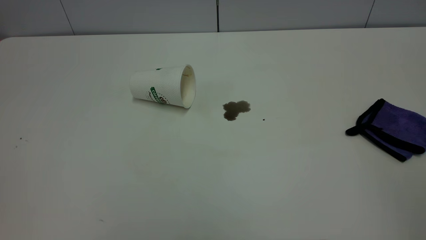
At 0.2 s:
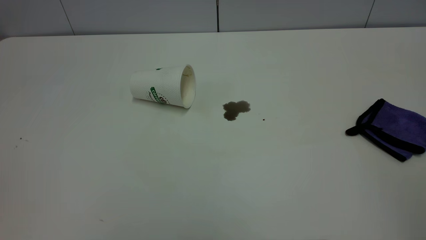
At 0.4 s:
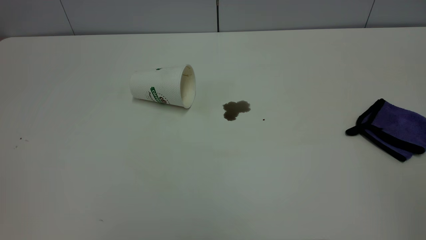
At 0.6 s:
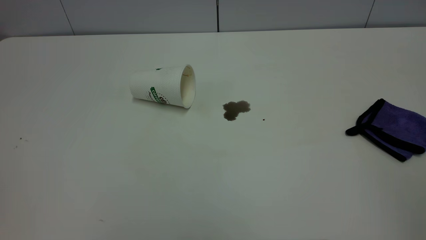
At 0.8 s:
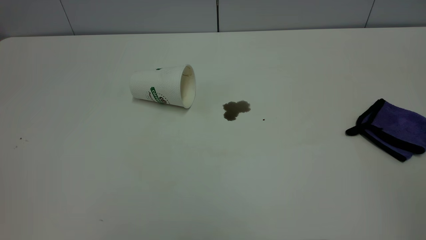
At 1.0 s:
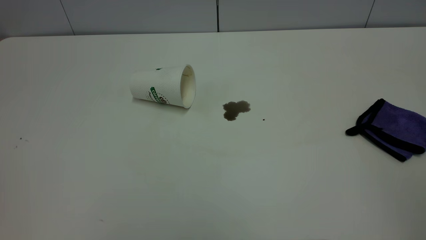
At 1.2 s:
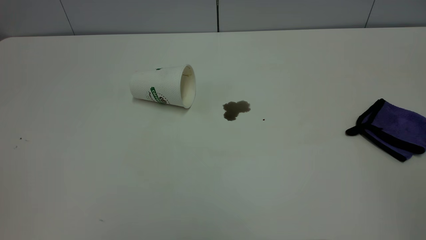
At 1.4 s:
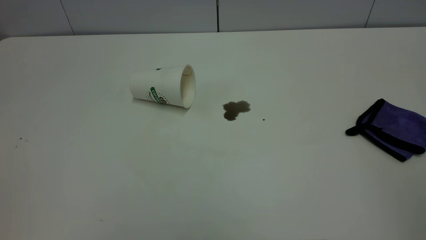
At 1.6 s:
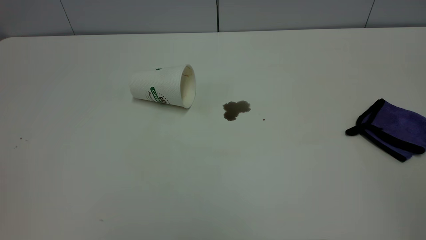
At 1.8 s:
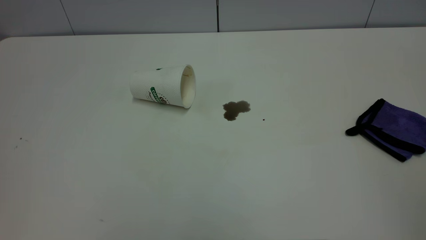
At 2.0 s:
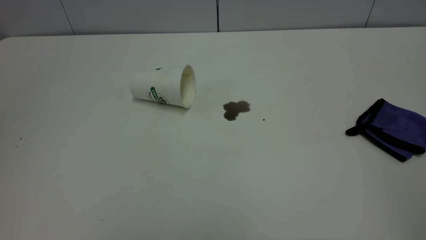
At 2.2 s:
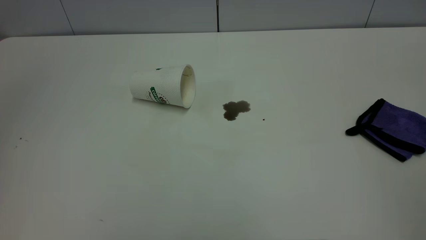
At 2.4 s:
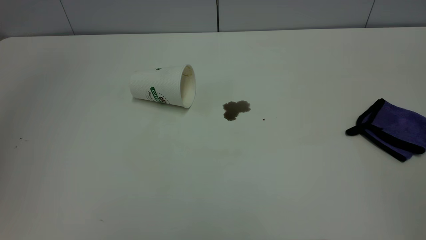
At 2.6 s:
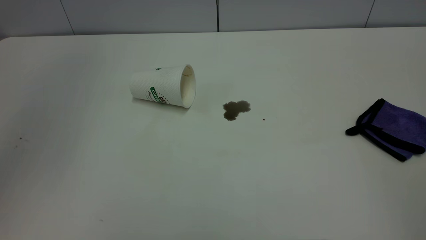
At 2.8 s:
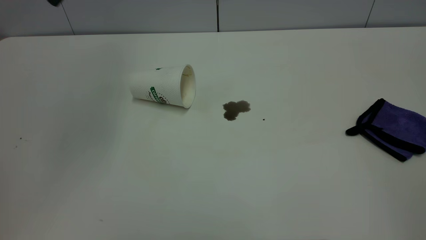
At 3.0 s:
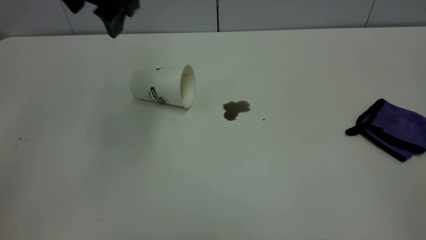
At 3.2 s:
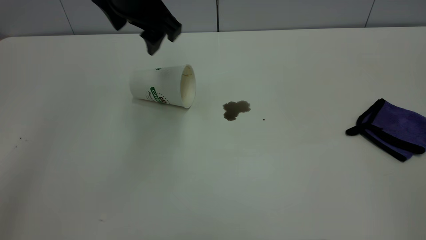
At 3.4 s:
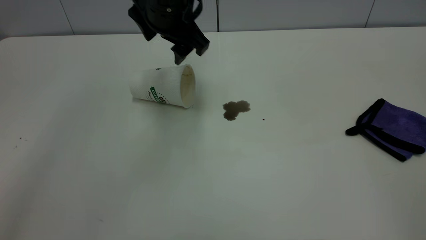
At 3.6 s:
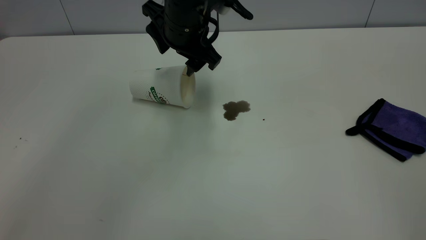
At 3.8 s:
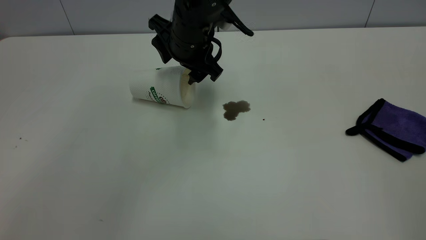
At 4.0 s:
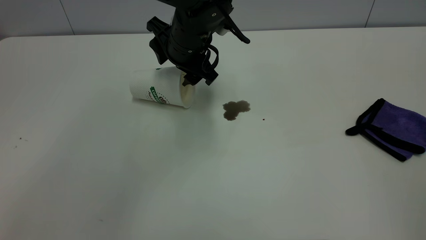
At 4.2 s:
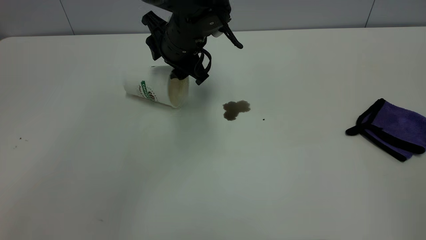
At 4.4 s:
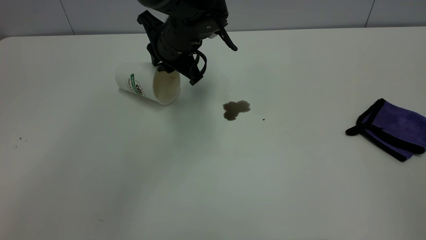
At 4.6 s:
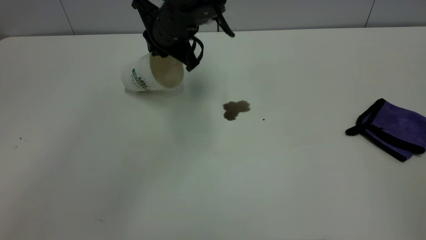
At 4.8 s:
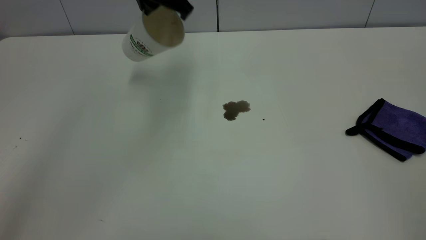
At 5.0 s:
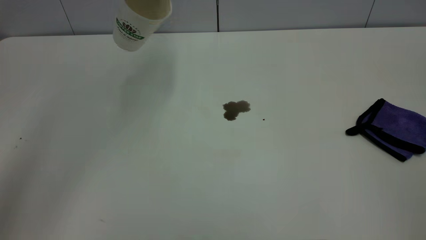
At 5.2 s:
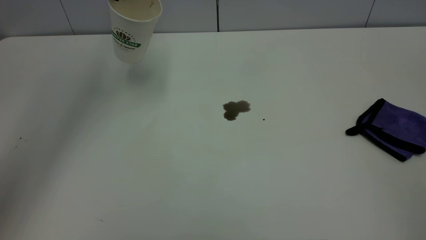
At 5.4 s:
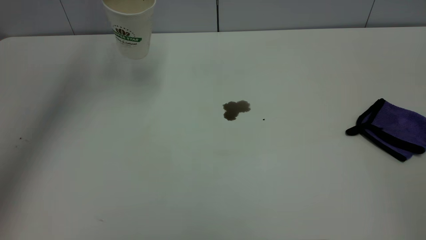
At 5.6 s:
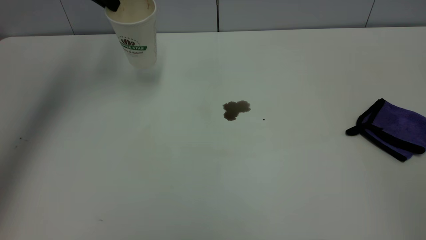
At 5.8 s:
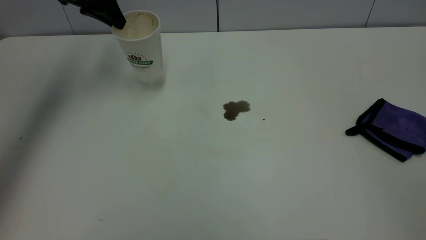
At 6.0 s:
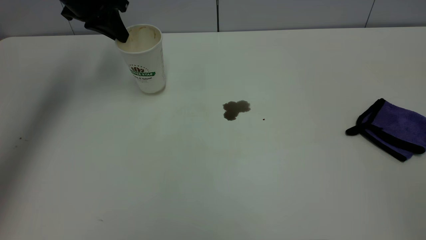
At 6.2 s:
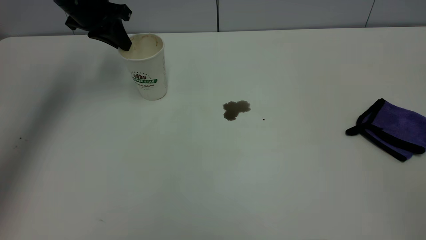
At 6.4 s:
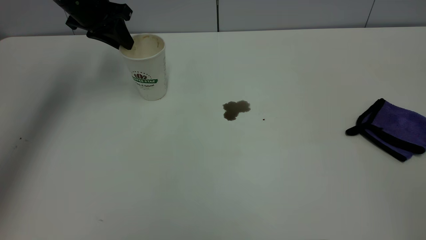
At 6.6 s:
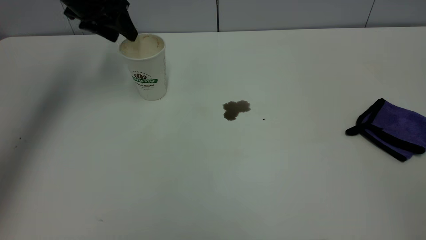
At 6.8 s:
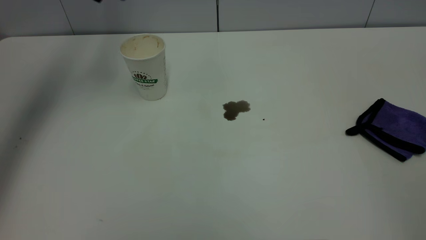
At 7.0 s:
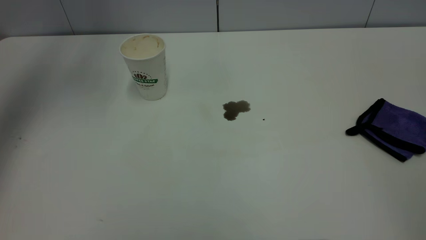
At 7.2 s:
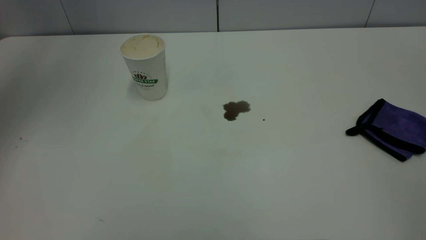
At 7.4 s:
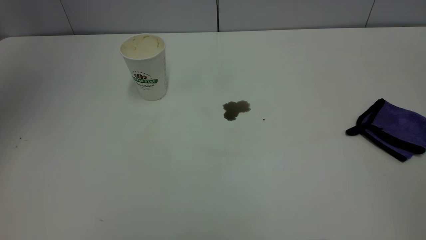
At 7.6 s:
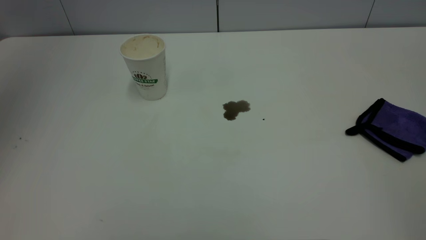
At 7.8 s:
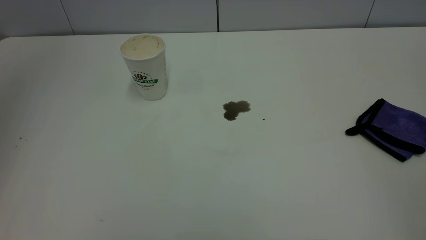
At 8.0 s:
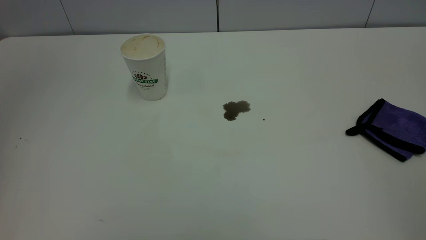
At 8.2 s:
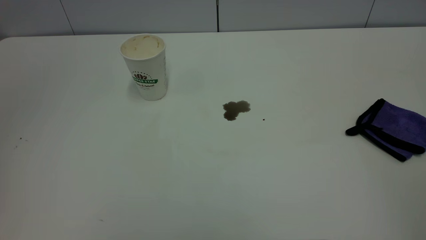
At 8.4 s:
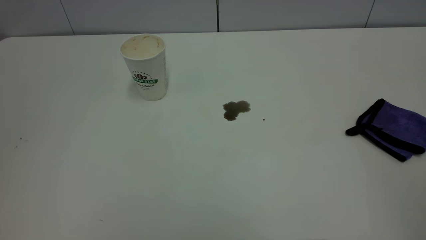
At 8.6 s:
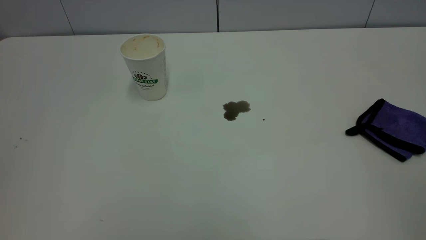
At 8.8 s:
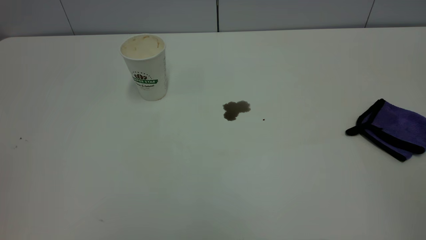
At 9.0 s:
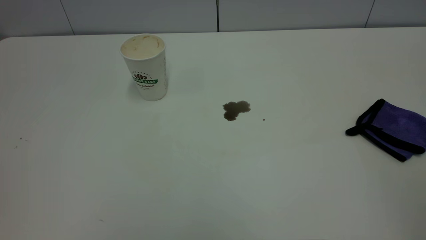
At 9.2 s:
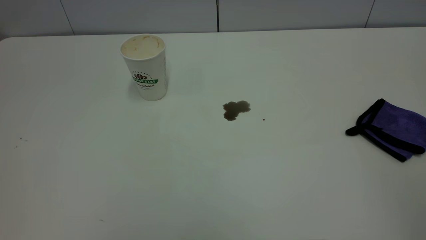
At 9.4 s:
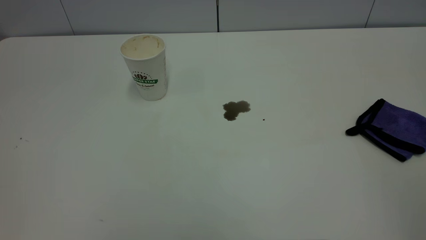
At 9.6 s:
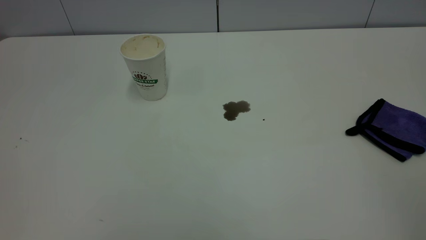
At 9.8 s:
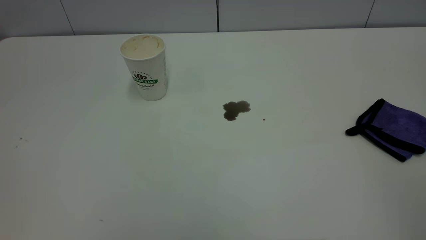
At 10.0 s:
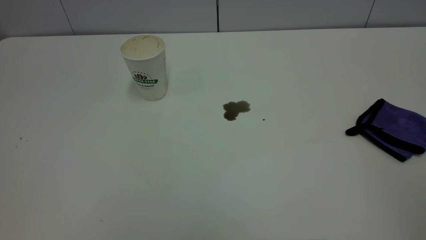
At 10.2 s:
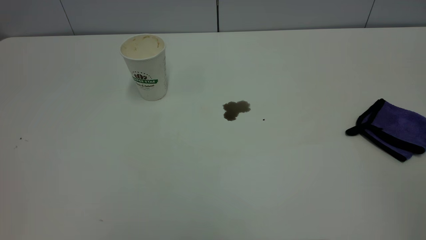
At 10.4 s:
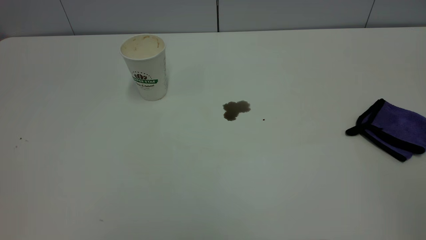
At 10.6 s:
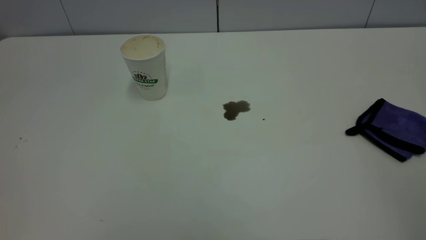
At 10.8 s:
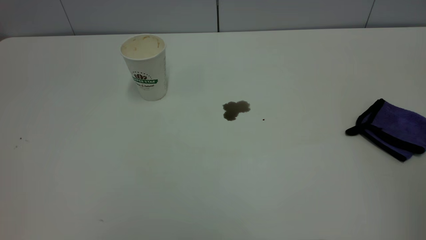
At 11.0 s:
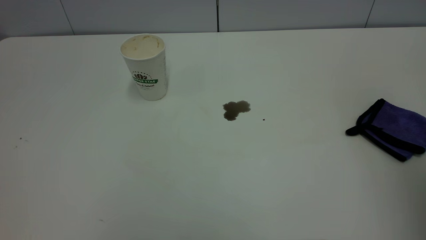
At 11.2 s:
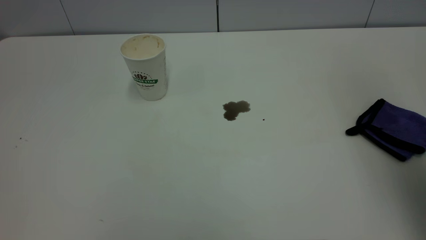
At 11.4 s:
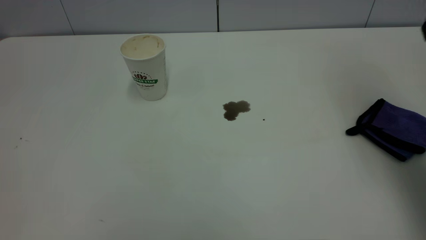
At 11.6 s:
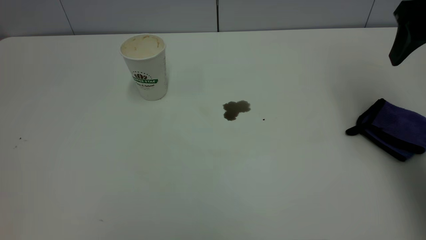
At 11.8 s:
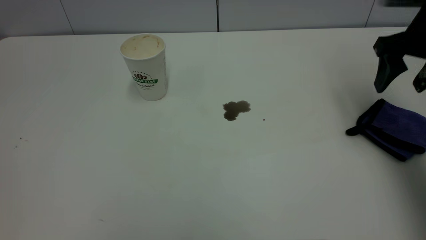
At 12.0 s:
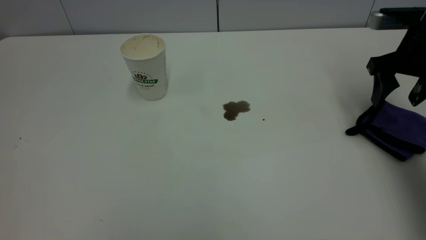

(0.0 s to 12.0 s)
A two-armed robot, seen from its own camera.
Task of the whole recording: the left gripper pick up the fallen cup and place it upright, the right gripper grasp the purple rag and wipe the coffee stain on the table, the right gripper put the purple rag back in its original position.
Step, 0.0 s - 6.6 s: Stand the paper cup upright.
1.6 s - 3.0 s: The left gripper goes about 40 cm forward and to the right, and opens.
3.0 s - 4.4 s: The left gripper shifts roughly 20 cm downward, forward and to the right, and closes.
4.4 s - 6.0 s: The left gripper travels to the left by about 20 cm.
6.0 s - 7.6 s: The left gripper heads upward and backward, covering approximately 30 cm, and opens its fingers.
7.6 s - 9.0 s: The left gripper shifts roughly 30 cm backward.
10.4 s - 12.0 s: The right gripper moves forward and downward, approximately 40 cm, and opens its fingers.

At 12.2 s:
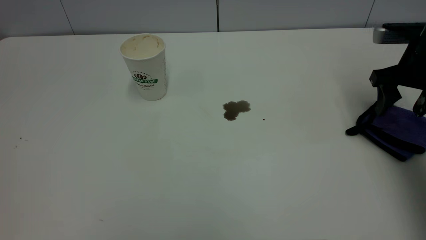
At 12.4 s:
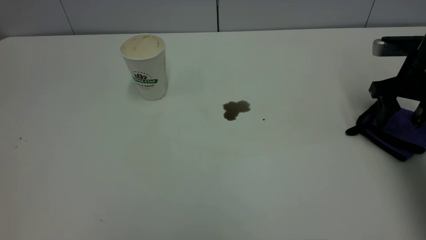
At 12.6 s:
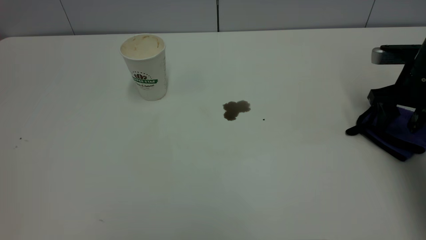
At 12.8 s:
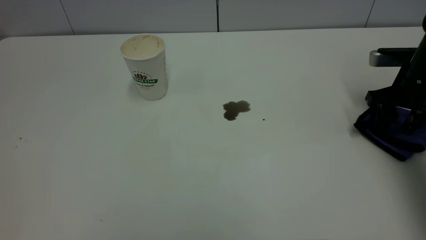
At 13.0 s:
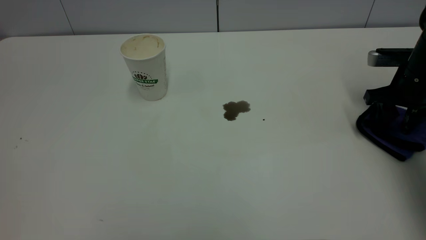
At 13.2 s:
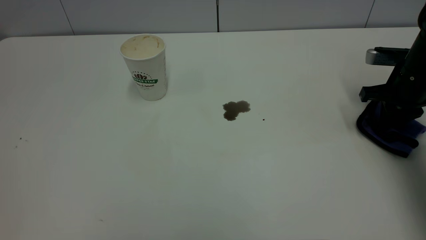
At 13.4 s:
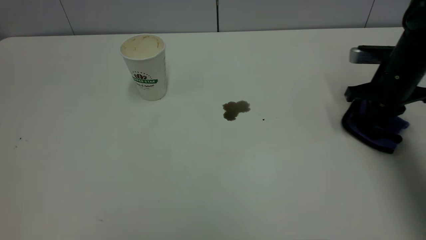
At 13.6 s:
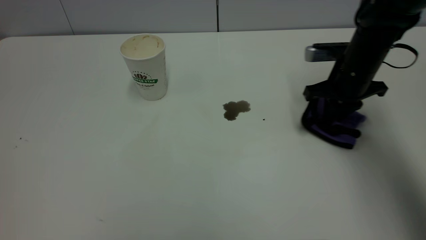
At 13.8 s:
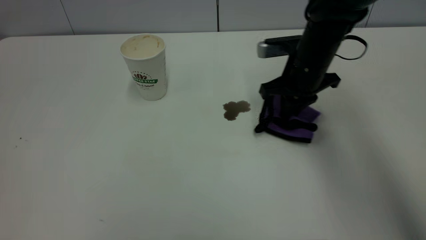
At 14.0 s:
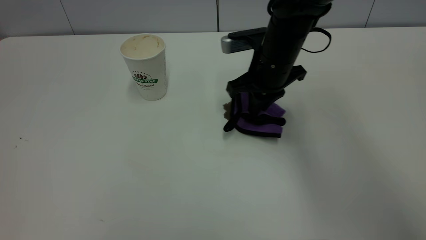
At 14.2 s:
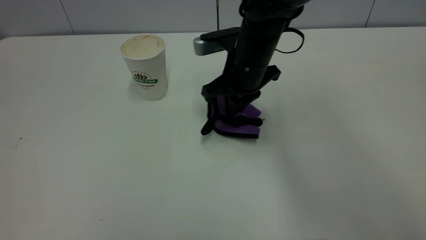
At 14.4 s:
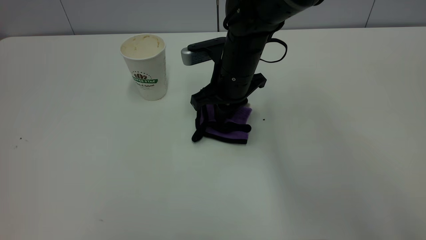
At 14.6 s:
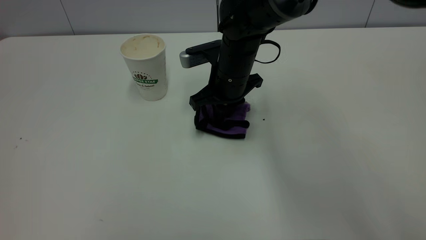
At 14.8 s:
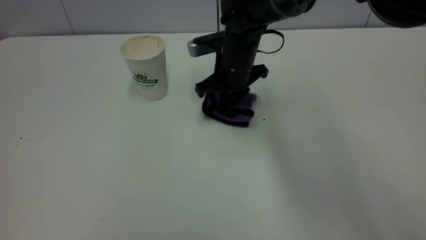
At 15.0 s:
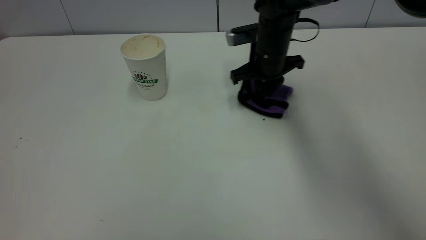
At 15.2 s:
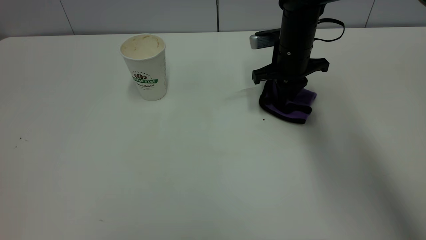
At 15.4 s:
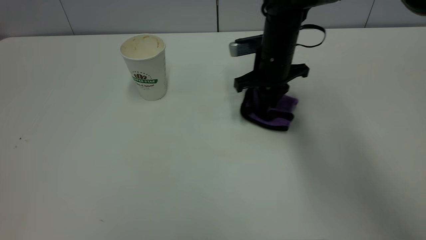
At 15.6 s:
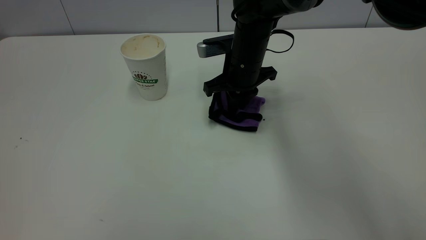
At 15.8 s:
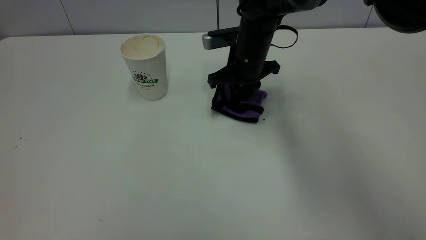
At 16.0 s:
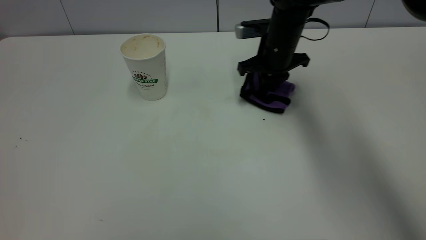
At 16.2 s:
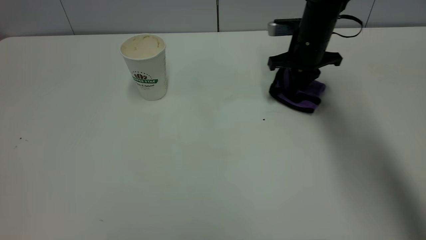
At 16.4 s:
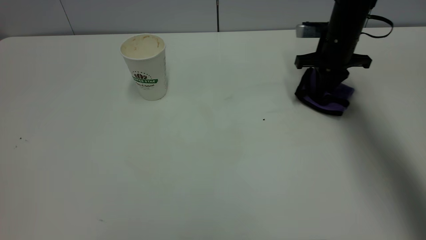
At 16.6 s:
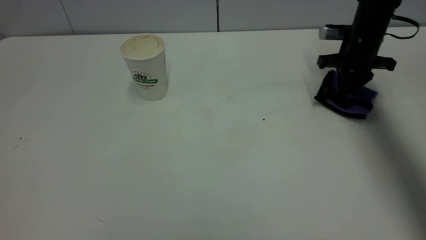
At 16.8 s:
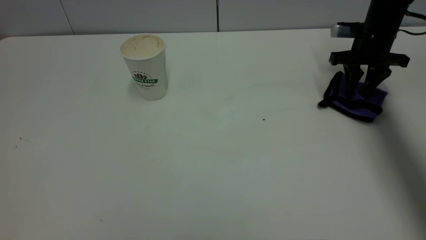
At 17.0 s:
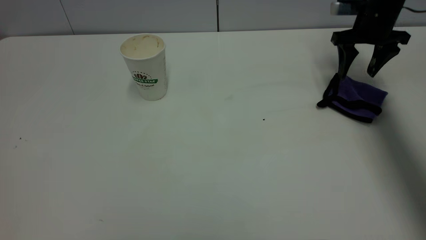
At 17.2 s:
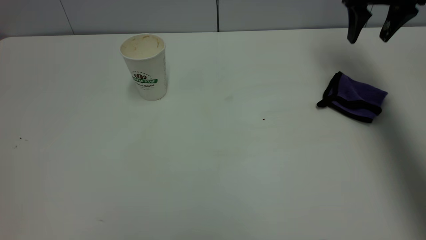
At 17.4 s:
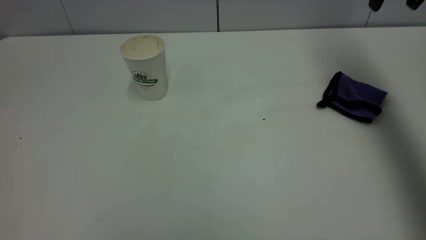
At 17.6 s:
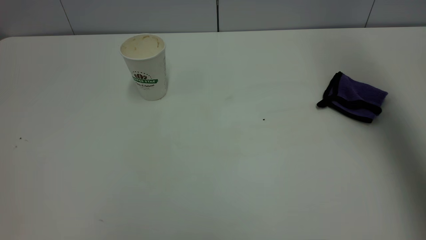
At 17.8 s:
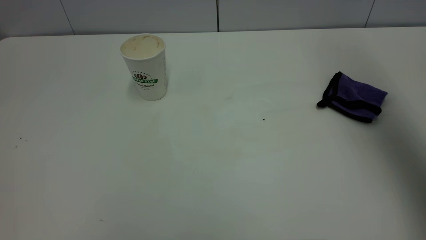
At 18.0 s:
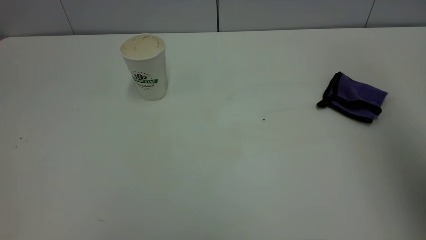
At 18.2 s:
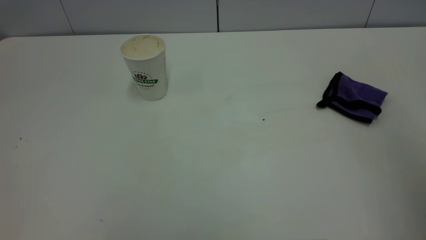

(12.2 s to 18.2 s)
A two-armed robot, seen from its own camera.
Task of the whole recording: the left gripper pick up the fallen cup and place it upright, the right gripper grasp the purple rag and wipe the coffee stain on the table, the right gripper put the purple rag back in its original position.
Step, 12.2 s - 17.0 s: Wipe the stains off the table with a rag.
12.2 s - 13.8 s: The right gripper travels to the left by approximately 20 cm, and closes up.
13.8 s - 15.2 s: The right gripper shifts approximately 5 cm forward, and travels to the left and back again, roughly 10 cm each way.
15.2 s - 16.6 s: The right gripper goes some 15 cm to the right.
16.6 s - 18.2 s: The right gripper travels backward and upward by approximately 50 cm, and opens up.
